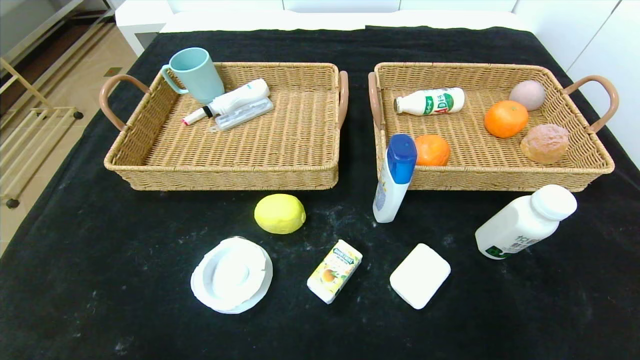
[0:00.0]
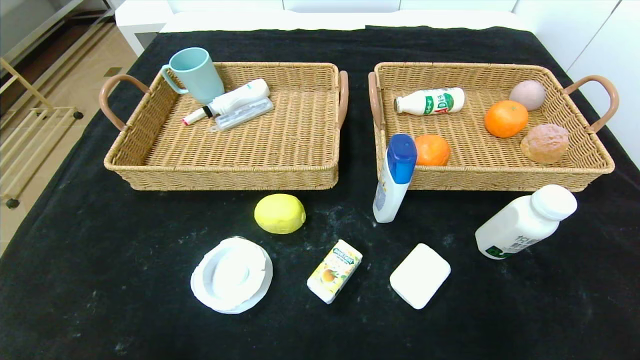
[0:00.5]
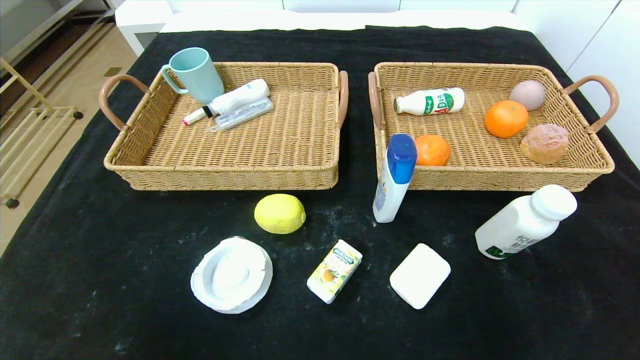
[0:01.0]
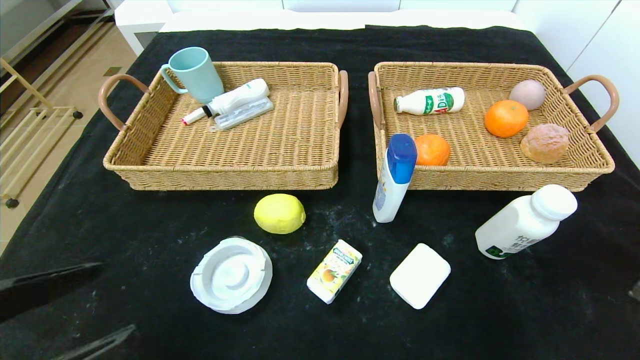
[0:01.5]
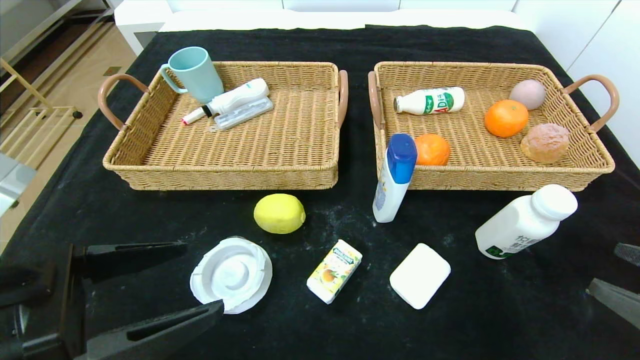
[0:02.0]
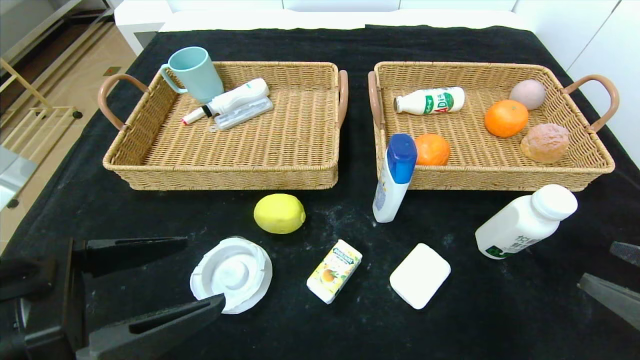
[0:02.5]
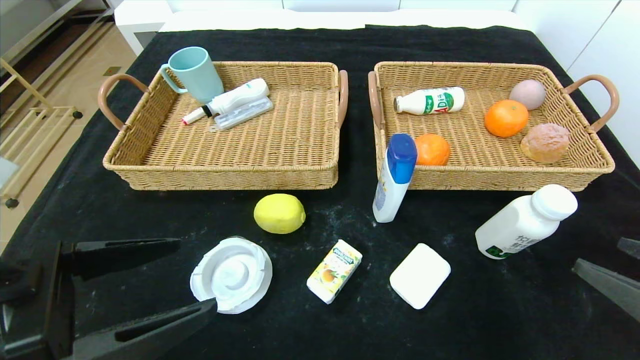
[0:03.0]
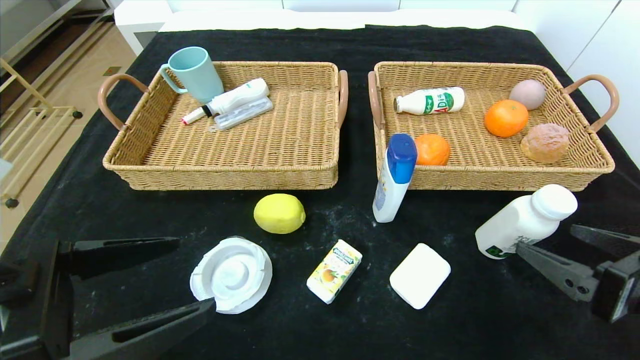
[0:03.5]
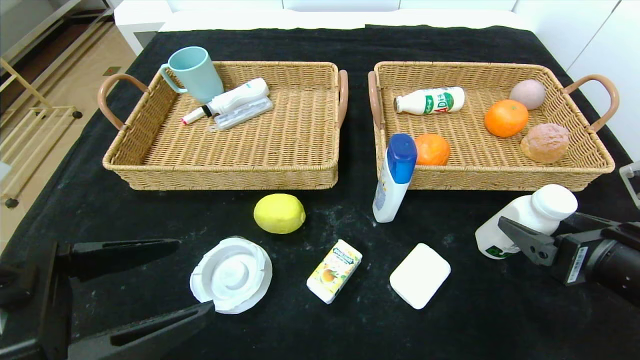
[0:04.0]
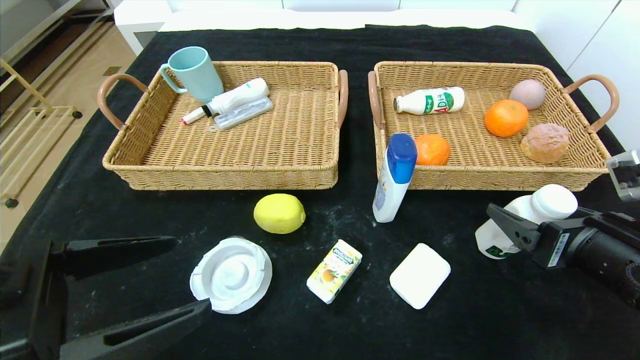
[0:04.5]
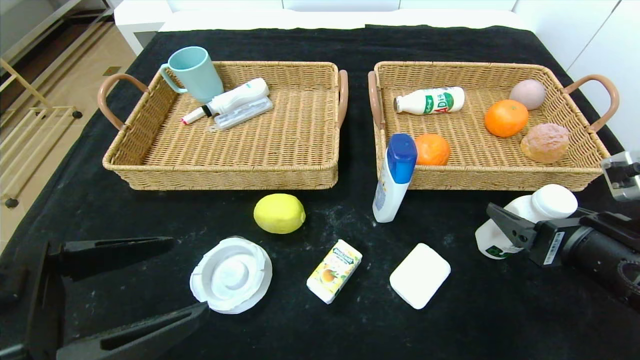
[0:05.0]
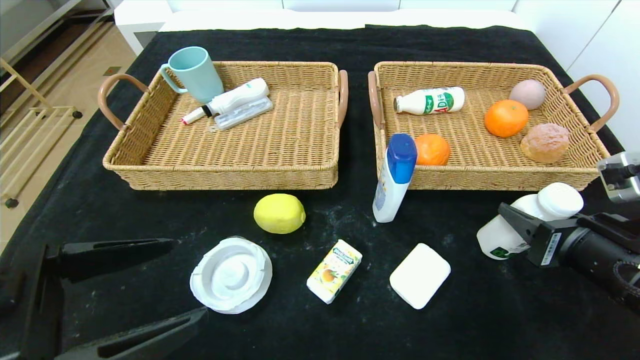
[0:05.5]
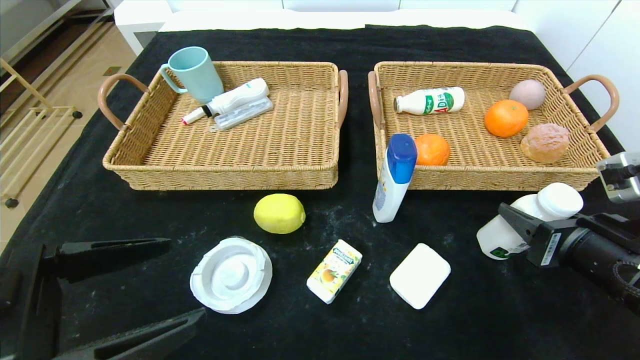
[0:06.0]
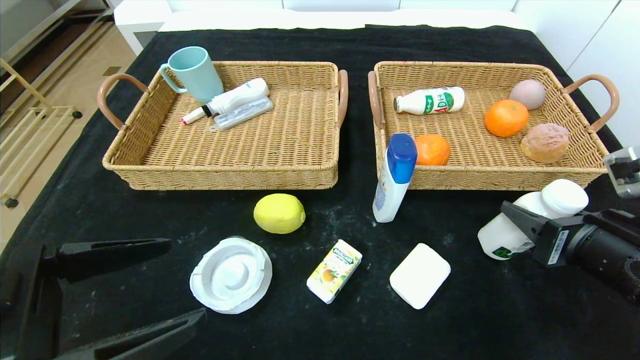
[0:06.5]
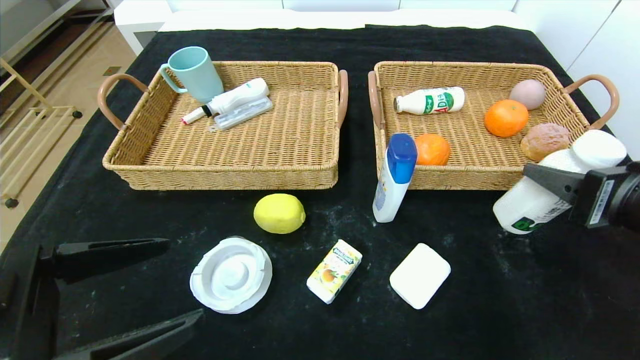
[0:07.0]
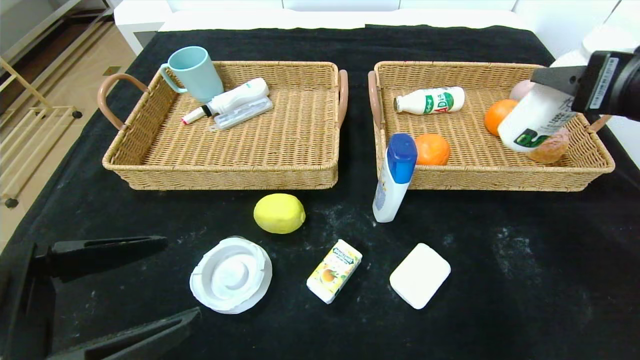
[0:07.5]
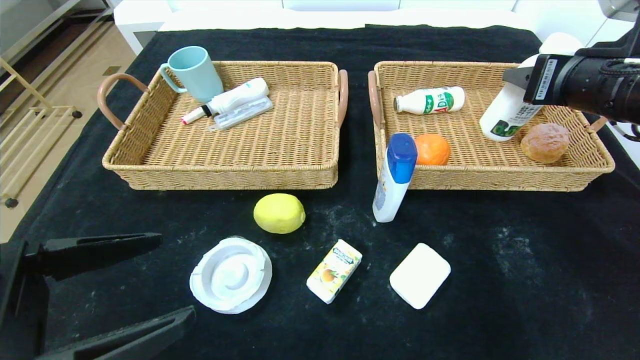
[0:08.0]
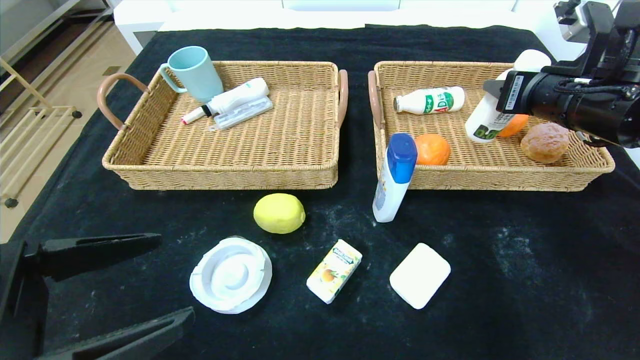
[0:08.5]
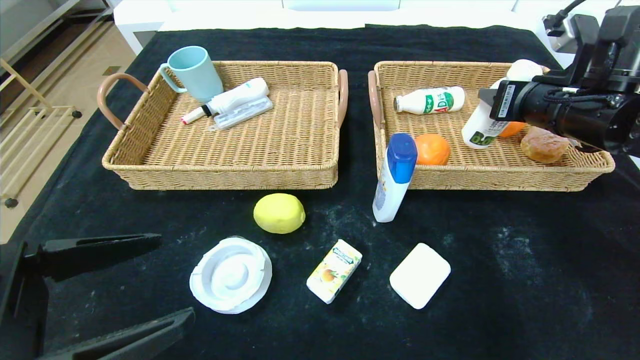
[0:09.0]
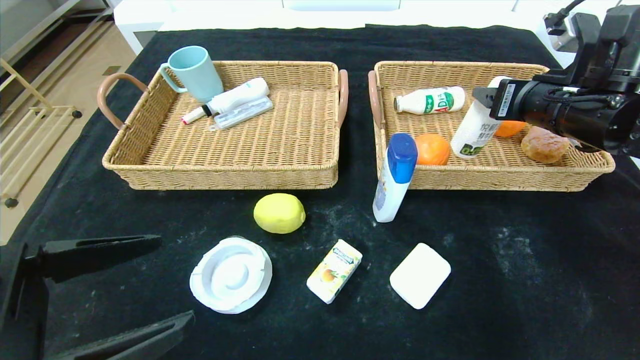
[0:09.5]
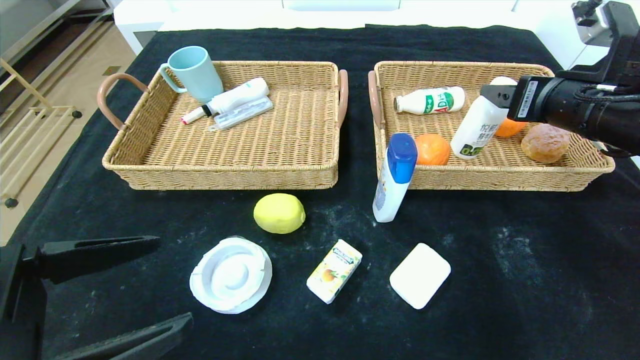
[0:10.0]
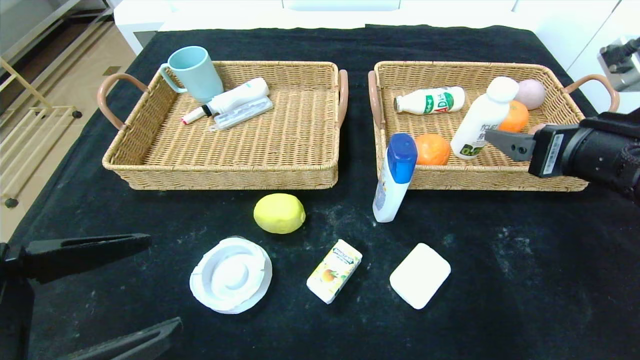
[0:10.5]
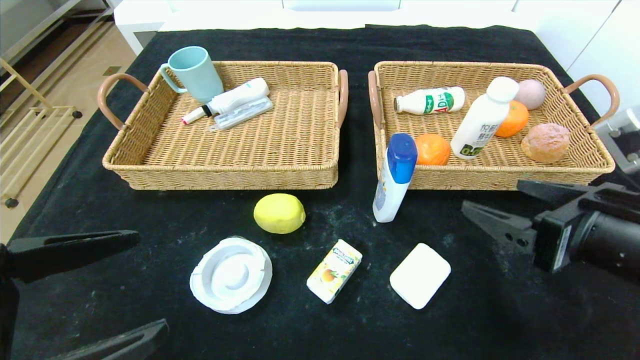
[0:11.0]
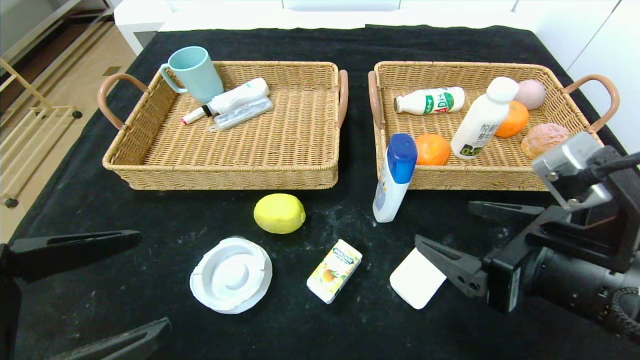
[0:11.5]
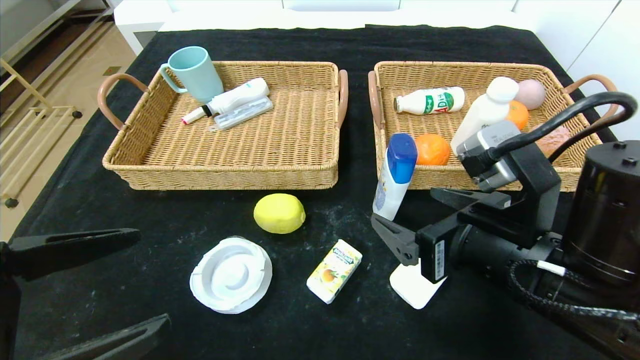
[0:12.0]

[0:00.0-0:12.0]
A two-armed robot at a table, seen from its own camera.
Step, 0.0 to 9.5 s: Grasp the milk and put it in the right basket.
0.0 to 2.0 s: The two grippers go roughly 20 cm upward and forward.
2.0 to 4.0 s: The right gripper heads forward, covering some 10 cm.
4.0 to 6.0 s: The right gripper closes its fingers.
6.0 to 8.0 s: The right gripper goes some 15 cm upward and forward.
8.0 to 10.0 s: The right gripper opens.
10.0 to 12.0 s: The right gripper heads to the left, backward and downward, covering roughly 20 cm.

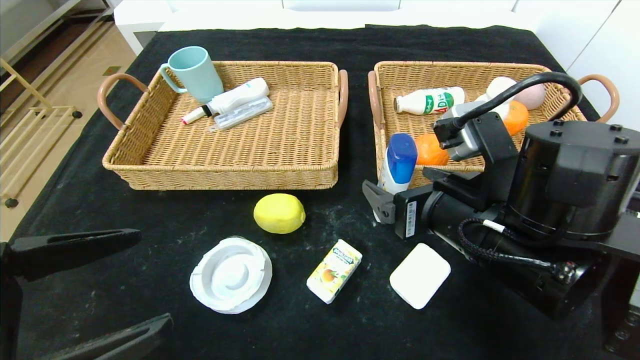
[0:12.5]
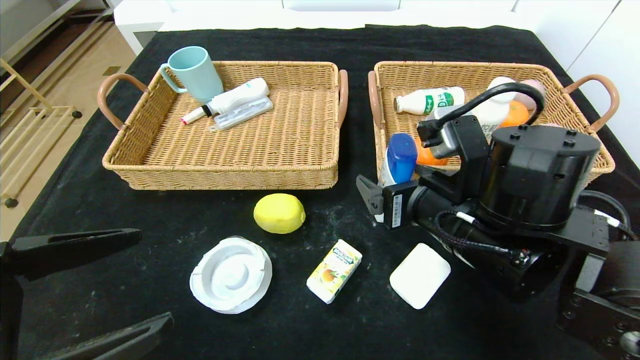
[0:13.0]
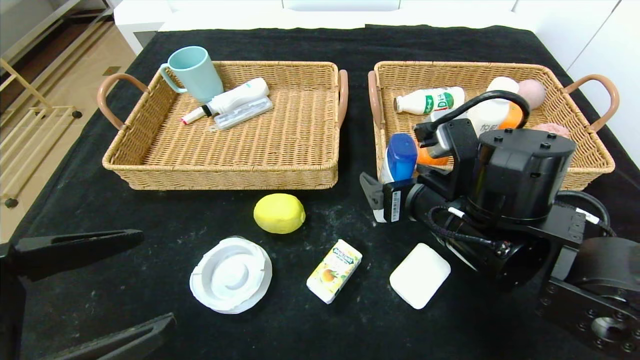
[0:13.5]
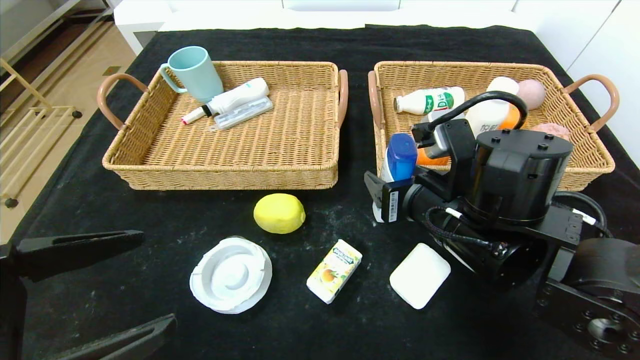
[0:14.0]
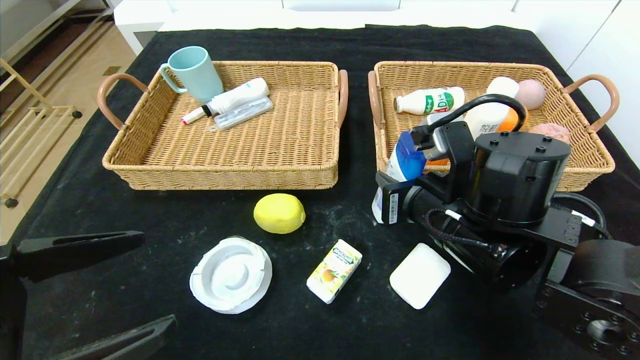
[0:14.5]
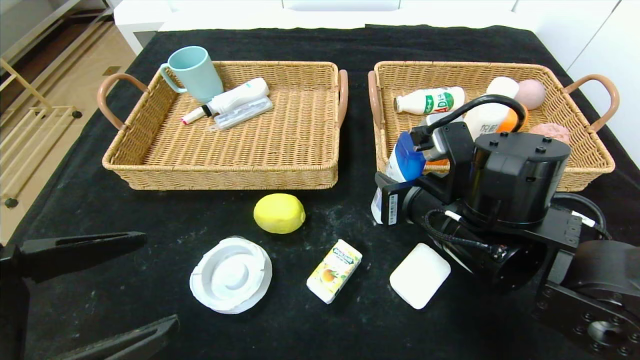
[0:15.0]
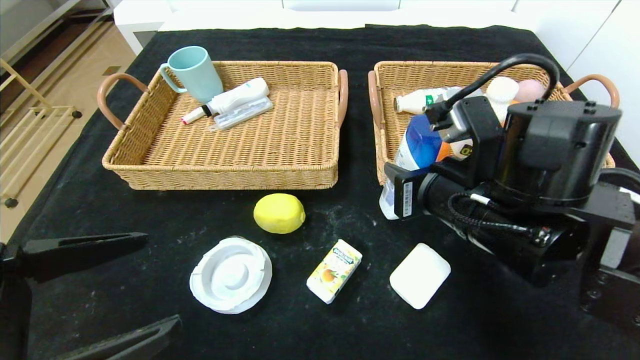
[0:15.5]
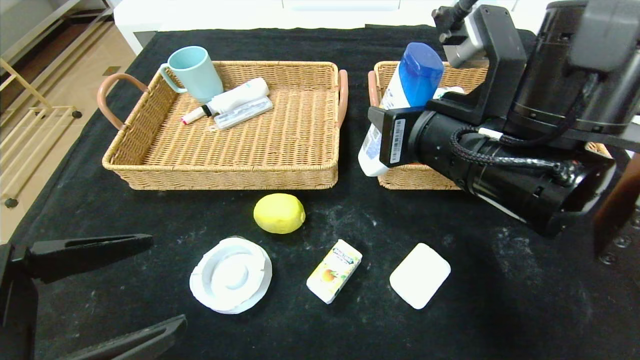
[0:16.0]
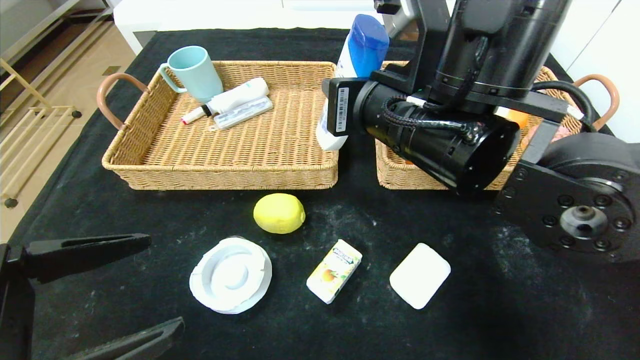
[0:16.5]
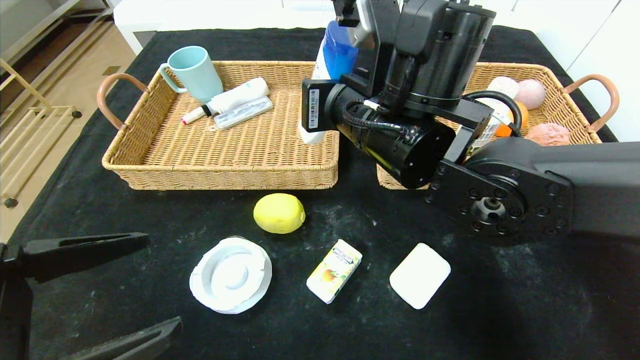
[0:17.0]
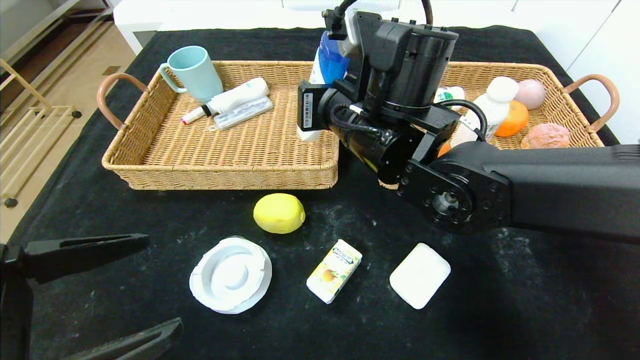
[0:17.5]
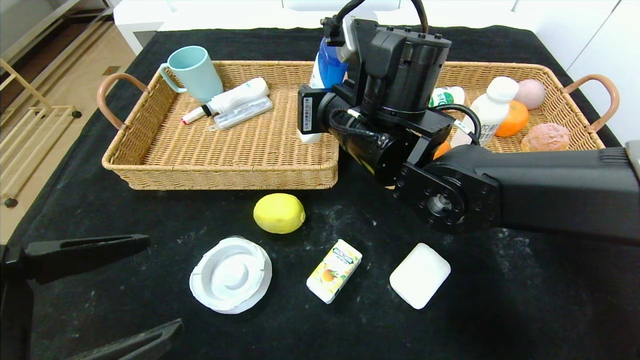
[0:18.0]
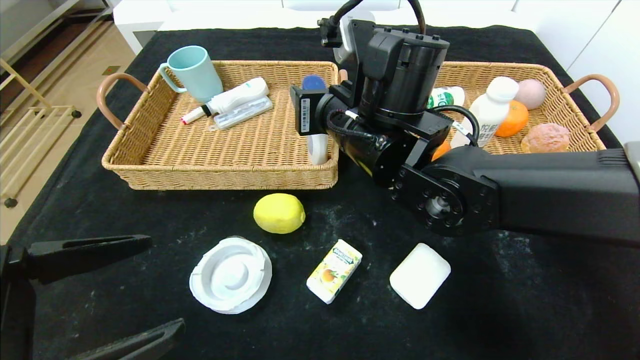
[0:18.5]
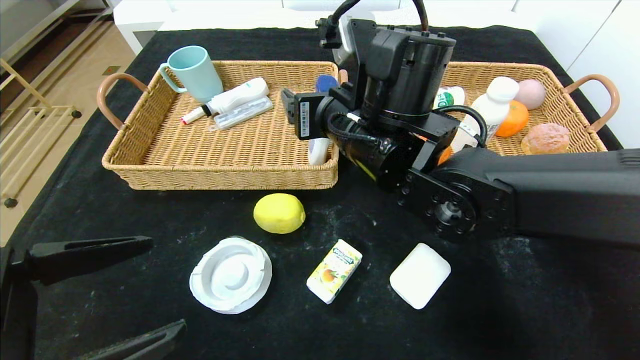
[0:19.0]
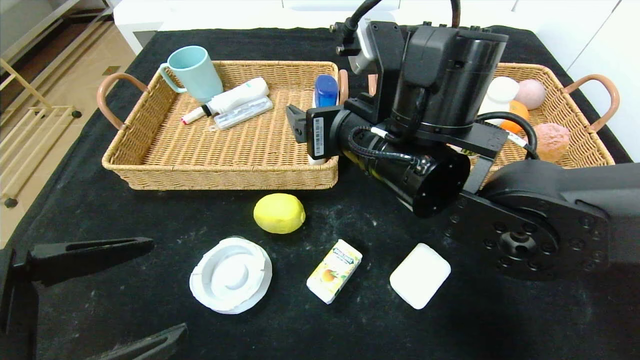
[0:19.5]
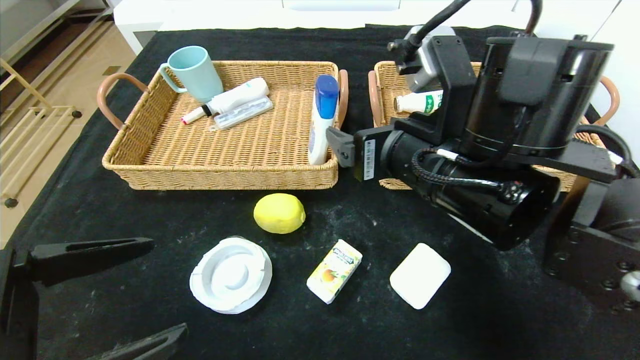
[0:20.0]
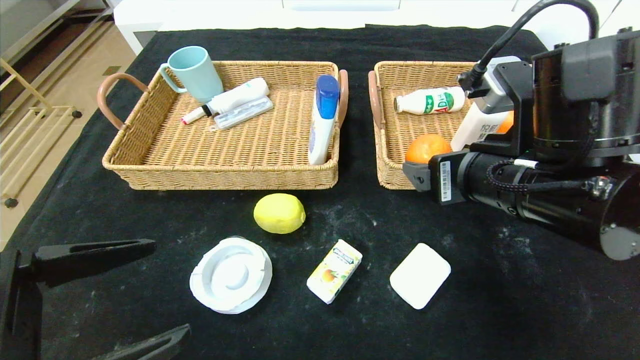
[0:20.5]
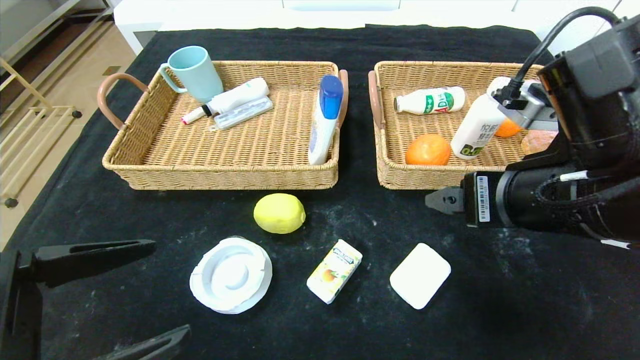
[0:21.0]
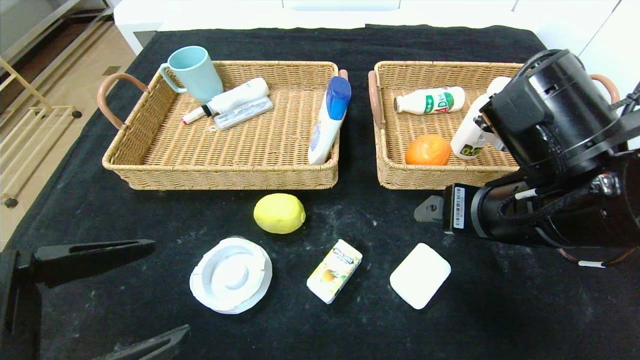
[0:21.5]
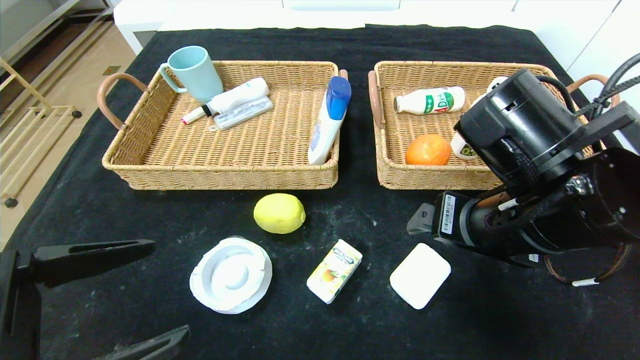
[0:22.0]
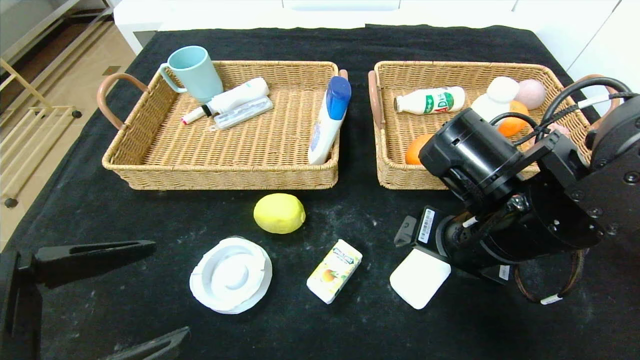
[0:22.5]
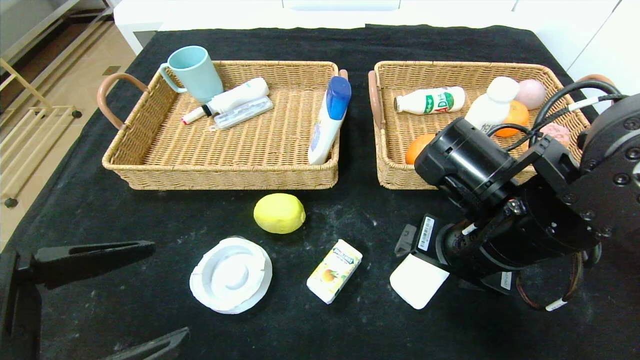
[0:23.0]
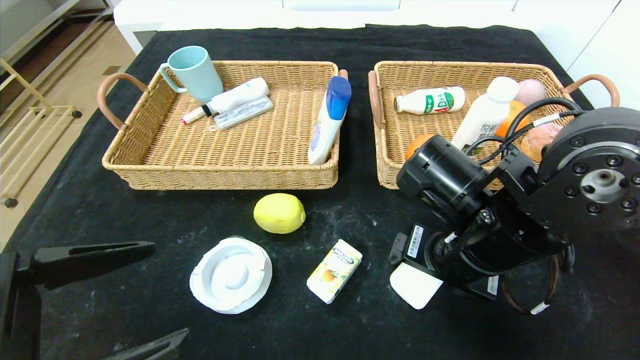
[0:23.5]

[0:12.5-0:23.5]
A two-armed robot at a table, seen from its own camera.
12.5 to 14.5 s: The right gripper closes.
14.5 to 16.0 s: The right gripper shifts about 10 cm upward.
16.0 to 18.0 s: The right gripper goes some 10 cm to the left and forward.
18.0 to 20.0 s: The right gripper goes approximately 10 cm backward and to the right, and opens up.
20.0 to 21.5 s: The right gripper shifts roughly 5 cm to the right.
21.5 to 23.5 s: The right gripper moves downward, roughly 5 cm.
